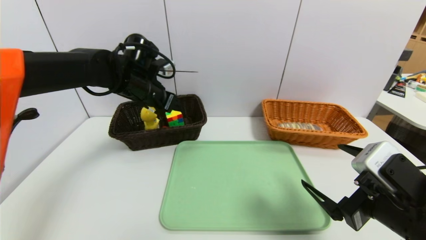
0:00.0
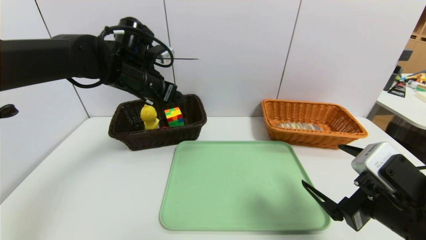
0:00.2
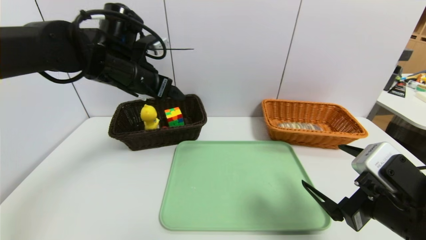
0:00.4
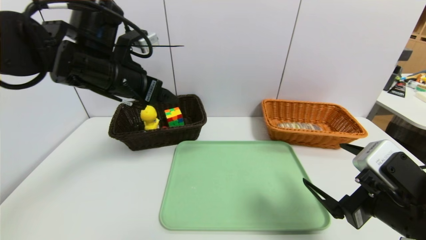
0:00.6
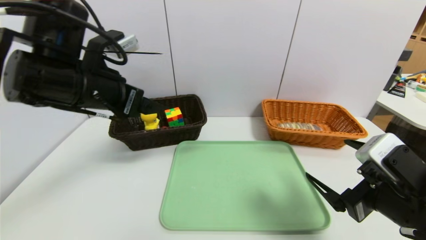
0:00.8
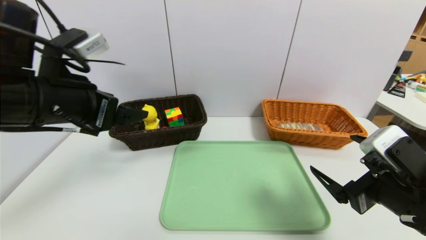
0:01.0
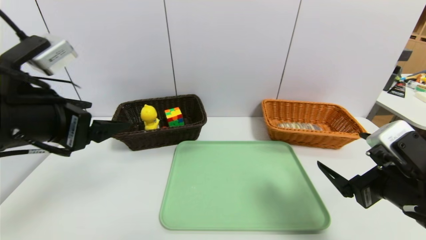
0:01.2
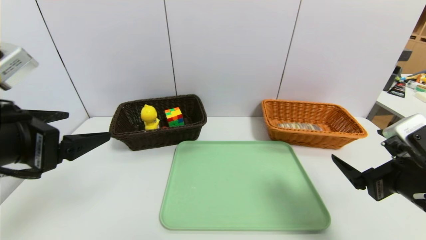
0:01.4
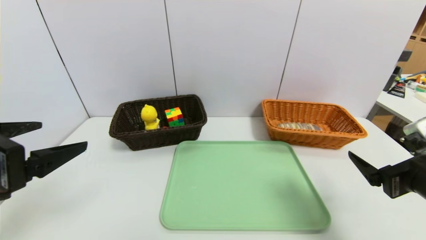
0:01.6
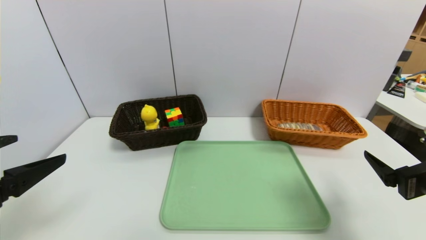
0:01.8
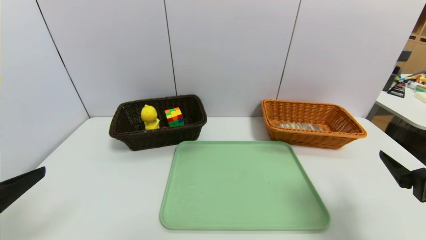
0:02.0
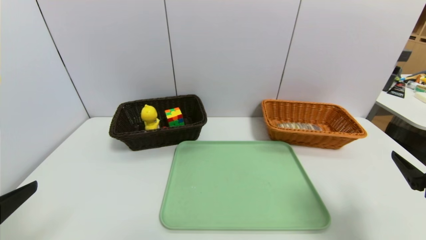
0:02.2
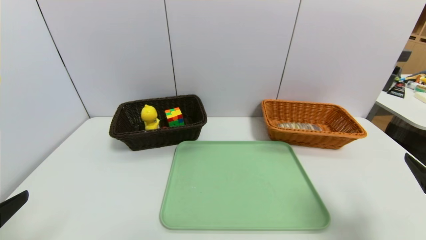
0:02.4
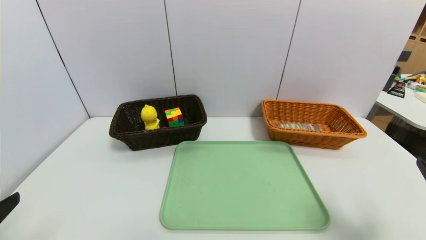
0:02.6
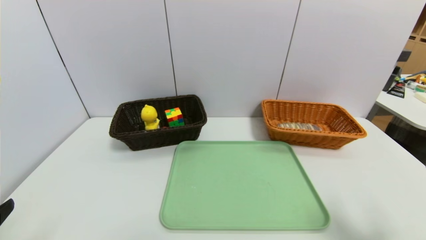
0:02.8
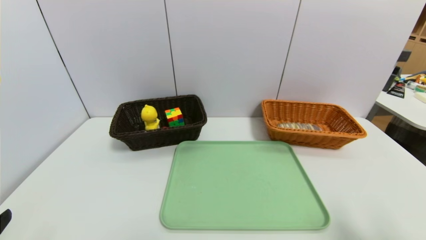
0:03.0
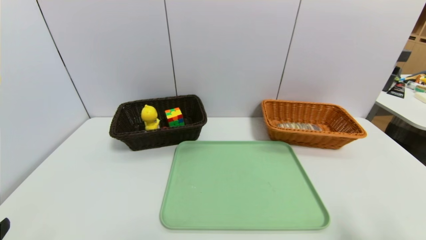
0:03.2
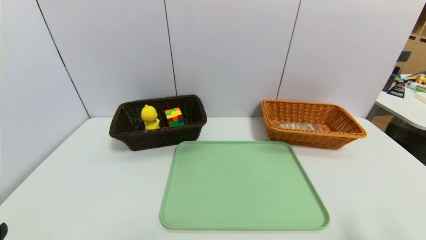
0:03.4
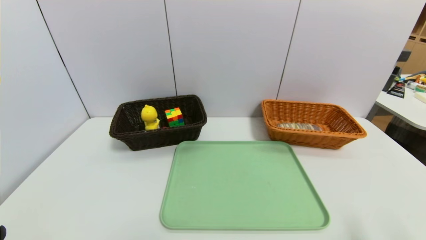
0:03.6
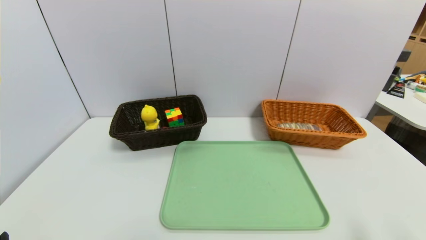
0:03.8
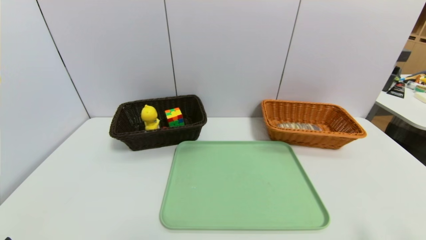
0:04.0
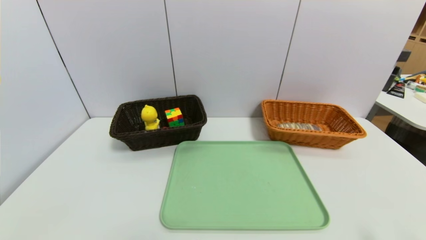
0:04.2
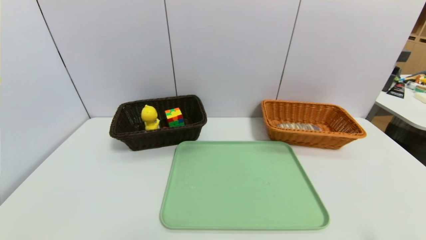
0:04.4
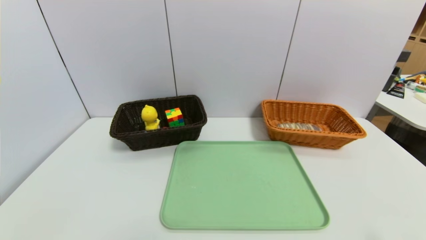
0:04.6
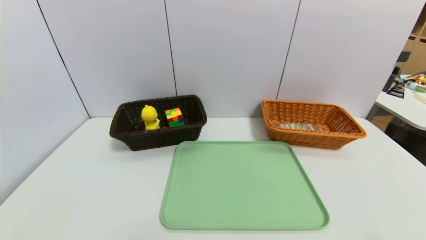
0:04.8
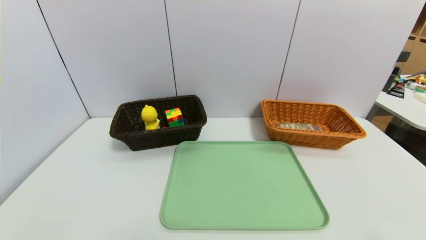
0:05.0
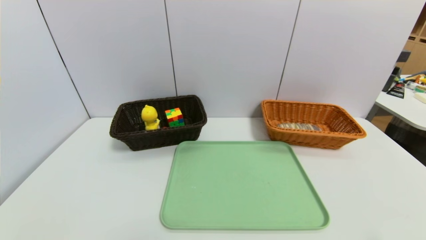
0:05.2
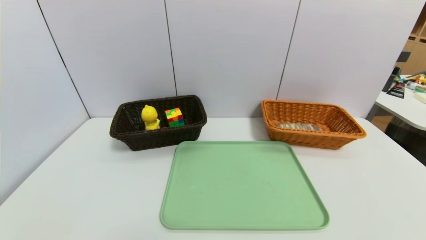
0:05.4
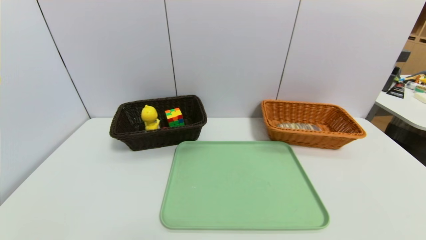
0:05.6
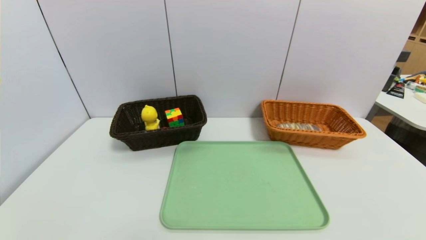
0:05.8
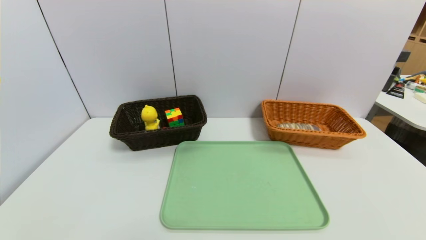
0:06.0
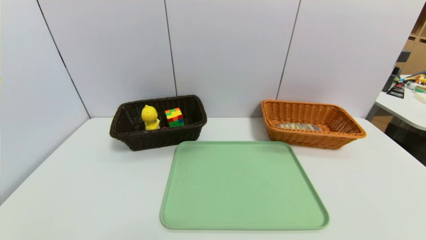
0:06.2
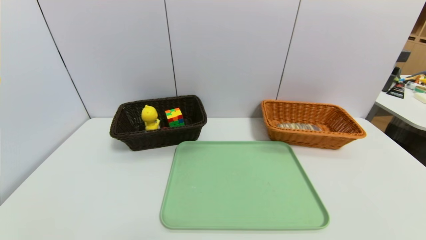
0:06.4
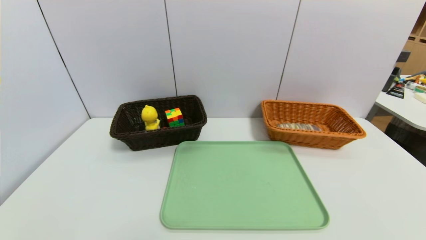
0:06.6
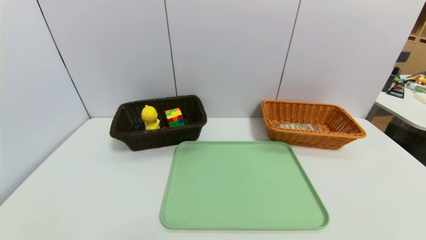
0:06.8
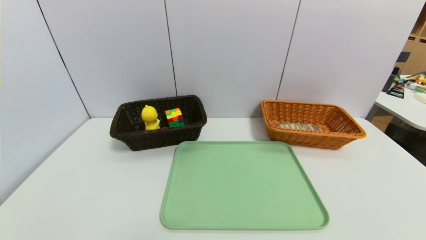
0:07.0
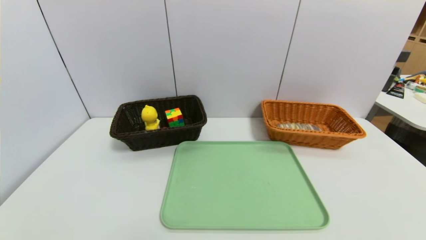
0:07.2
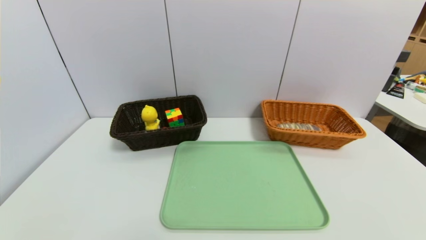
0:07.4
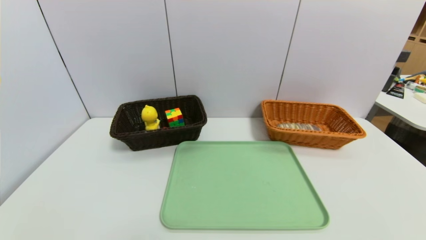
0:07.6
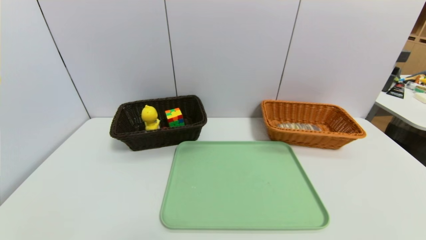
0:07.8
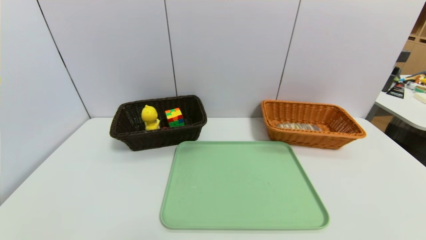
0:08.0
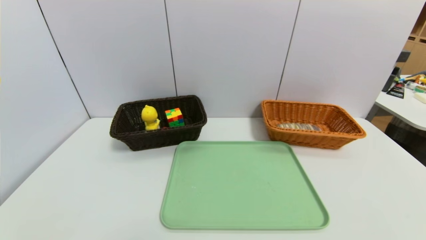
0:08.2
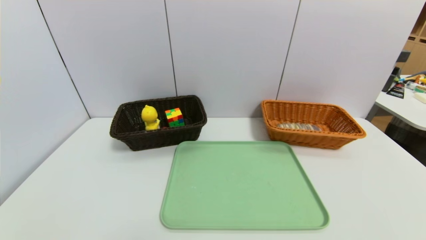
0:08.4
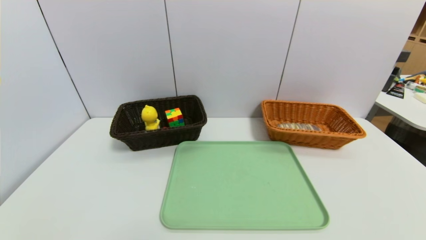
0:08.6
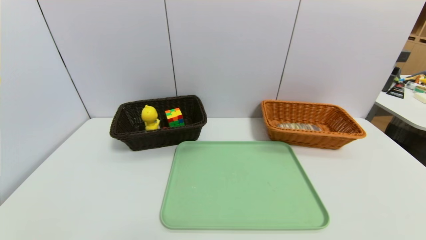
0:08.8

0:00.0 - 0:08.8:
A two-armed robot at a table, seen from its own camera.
Task of the whole recording: place the food in the right basket with the right gripper, and place the non food items in the left basket with the left gripper.
0:00.0 - 0:01.4: The left gripper is displaced backward by about 25 cm.
0:01.4 - 0:03.0: The right gripper goes roughly 10 cm backward and to the right, while the left gripper moves backward, downward and to the left, about 15 cm.

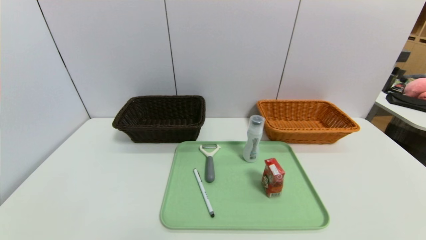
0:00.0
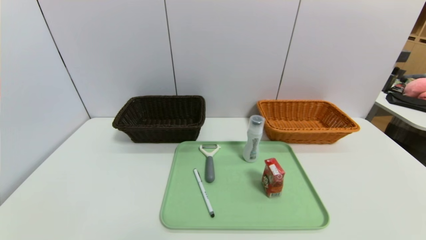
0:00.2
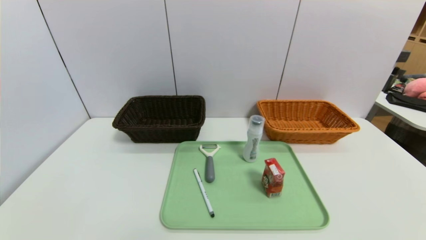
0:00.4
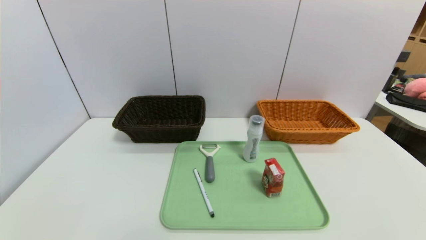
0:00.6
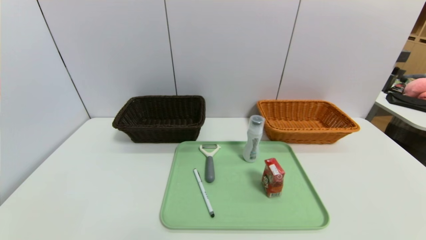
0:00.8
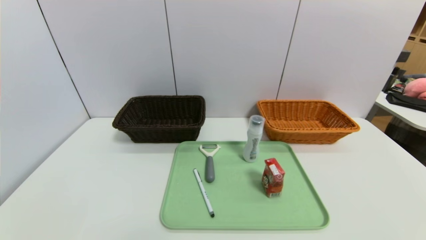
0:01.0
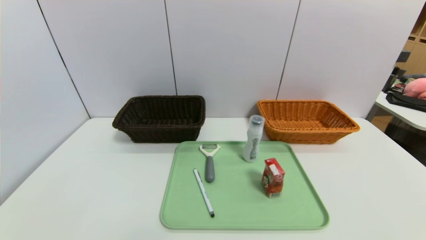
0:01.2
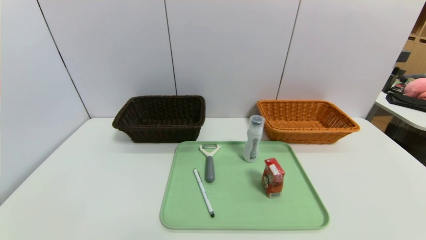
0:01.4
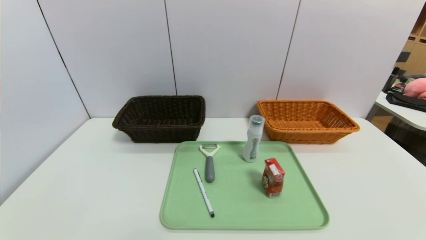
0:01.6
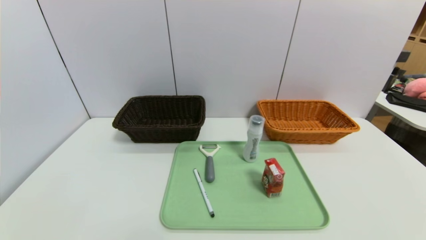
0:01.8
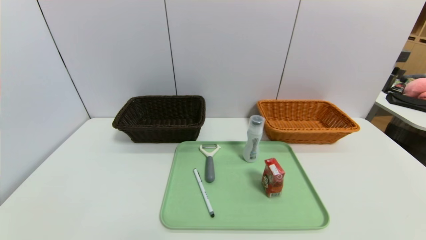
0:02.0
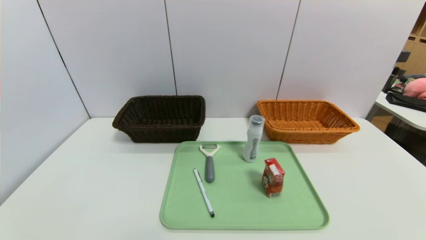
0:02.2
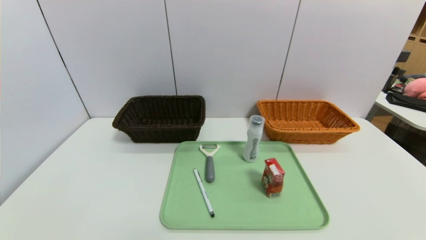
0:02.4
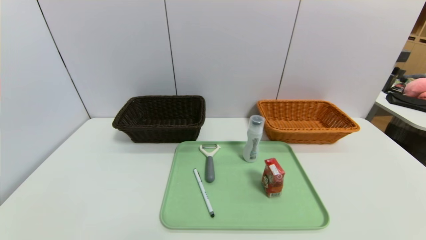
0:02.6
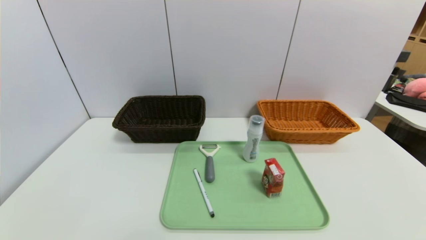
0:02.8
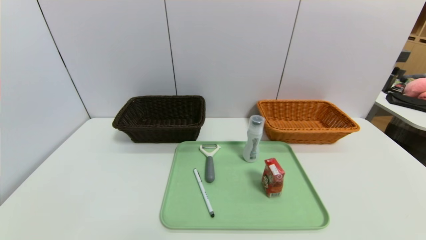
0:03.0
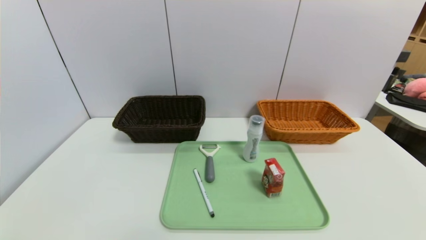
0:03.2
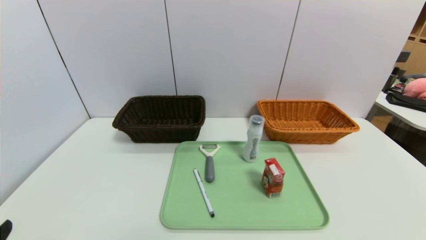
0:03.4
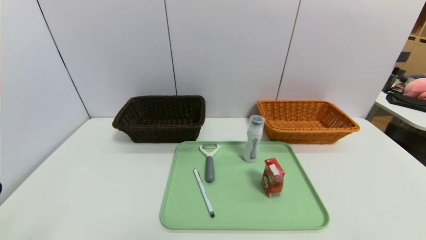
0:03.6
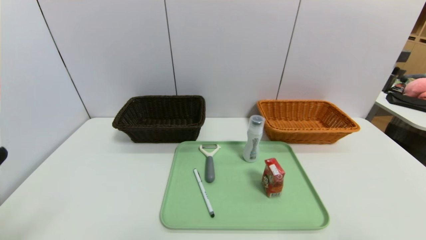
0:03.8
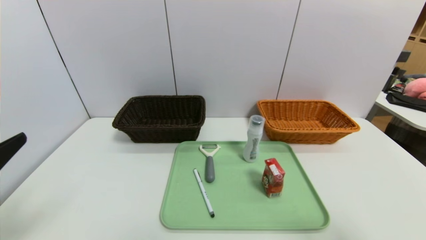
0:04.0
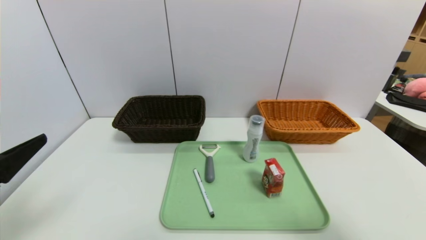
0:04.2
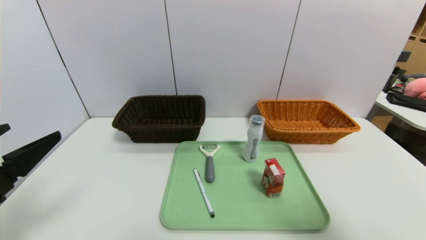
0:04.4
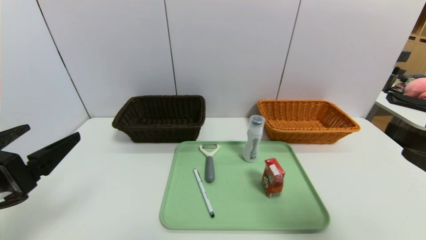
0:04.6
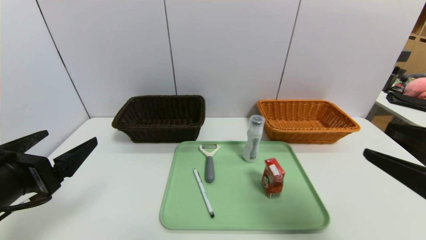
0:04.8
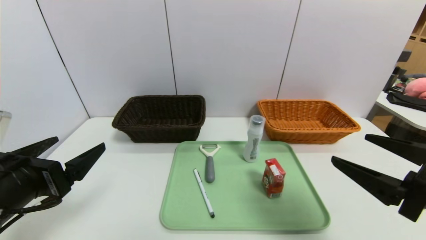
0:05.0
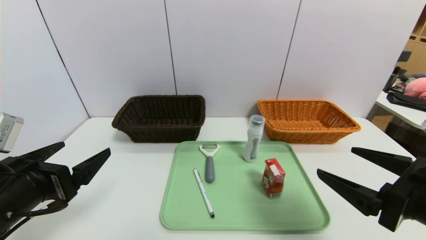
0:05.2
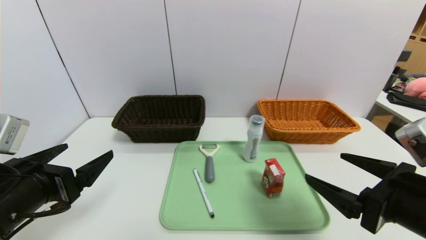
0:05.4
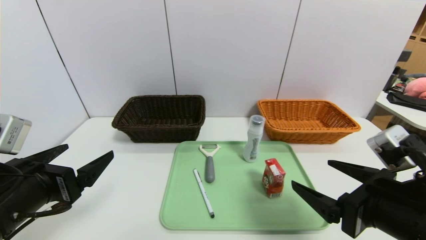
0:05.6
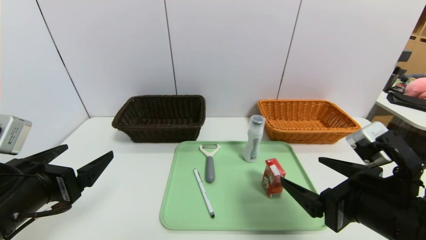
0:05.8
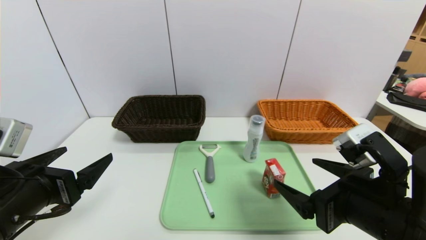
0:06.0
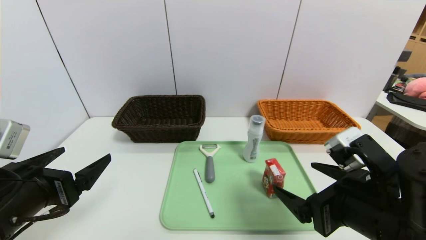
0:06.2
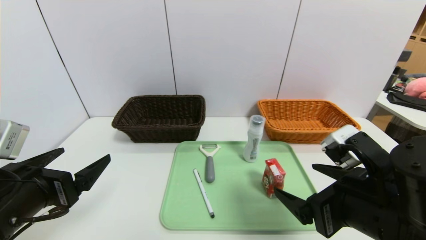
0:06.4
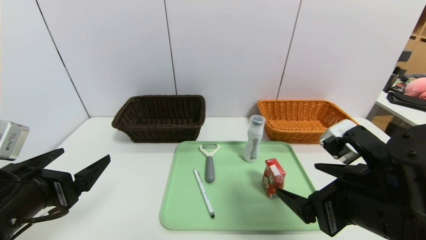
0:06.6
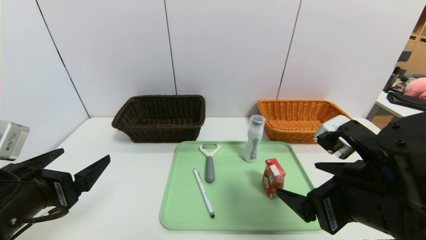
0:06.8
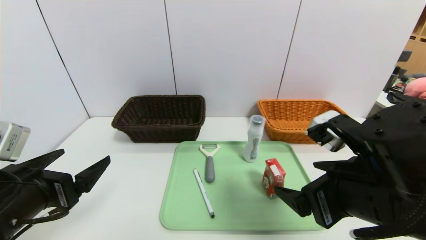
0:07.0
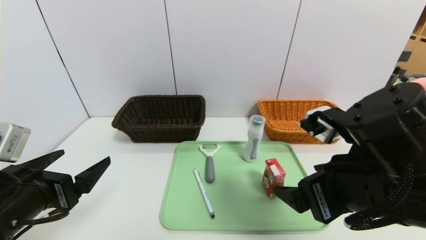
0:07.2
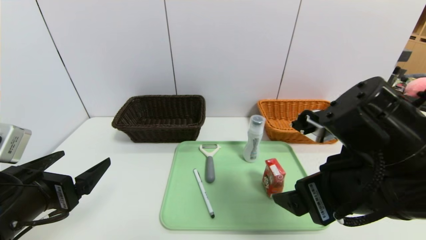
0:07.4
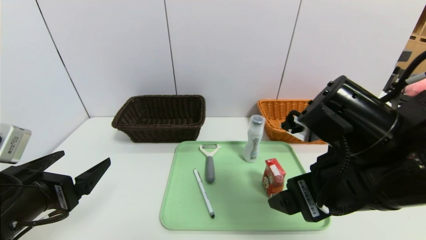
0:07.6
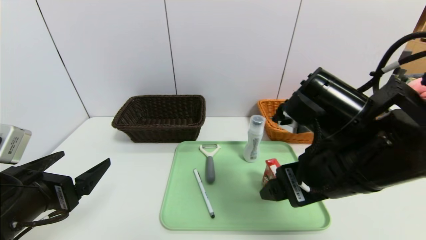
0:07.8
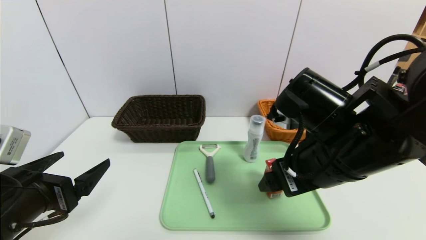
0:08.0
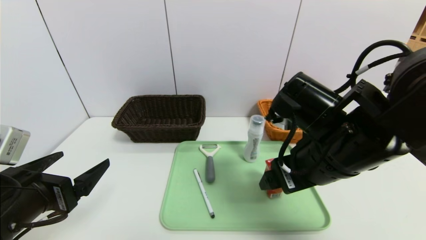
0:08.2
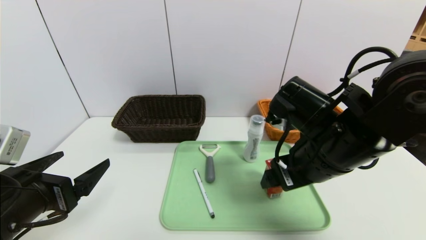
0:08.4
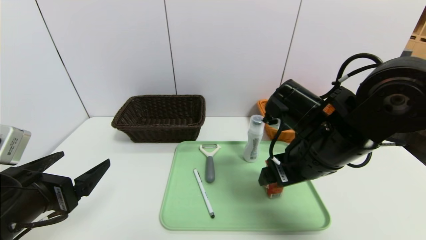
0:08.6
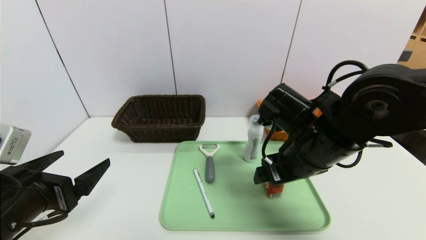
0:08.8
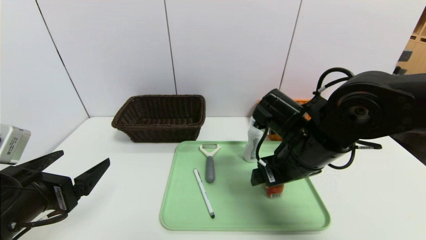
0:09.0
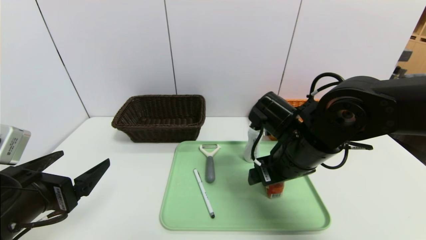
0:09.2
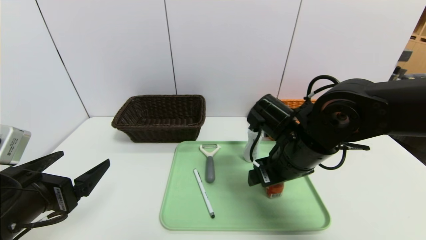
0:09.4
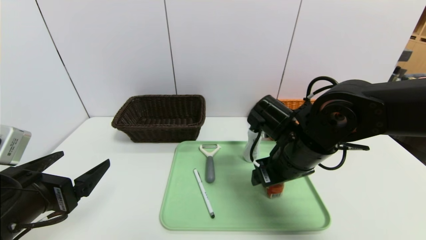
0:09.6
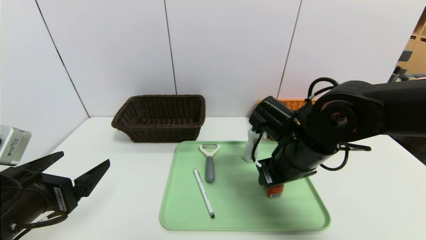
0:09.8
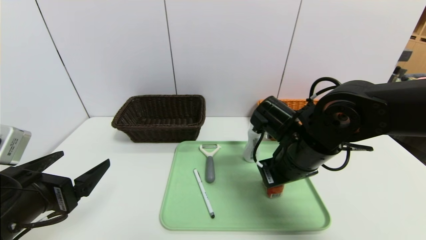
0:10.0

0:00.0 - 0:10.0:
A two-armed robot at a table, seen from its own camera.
Task of the whole recording: place the food in the right basket with the right gripper, and place the non food items in the left basket with the left gripper.
0:00.0 - 0:01.4: The two grippers keep their place.
0:02.8 - 0:04.2: The grippers both shift upward and forward by approximately 20 cm.
0:04.2 - 0:05.8: The right gripper heads to the left, forward and downward, covering some 15 cm. The left gripper changes place by some 10 cm.
0:05.8 - 0:07.2: The right gripper shifts by approximately 5 cm.
0:07.2 - 0:08.6: The right gripper shifts approximately 10 cm forward.
0:08.6 - 0:10.0: The right gripper closes.
